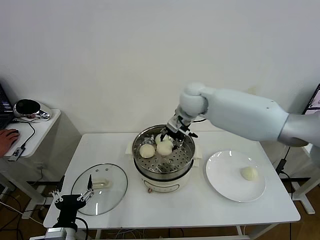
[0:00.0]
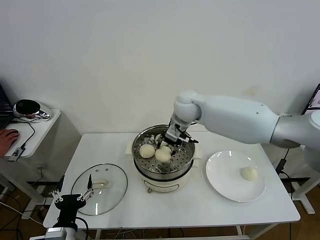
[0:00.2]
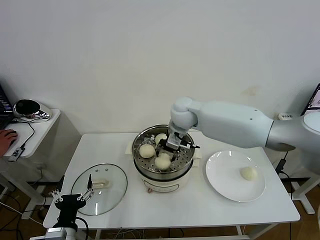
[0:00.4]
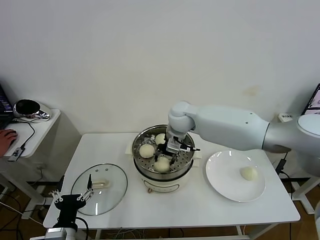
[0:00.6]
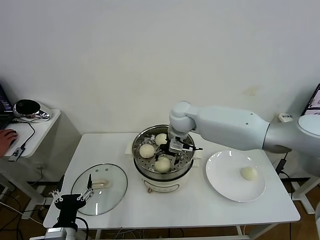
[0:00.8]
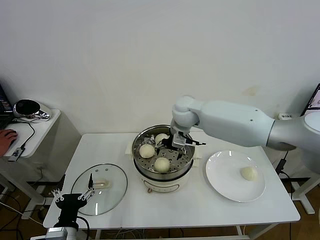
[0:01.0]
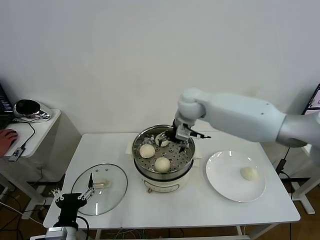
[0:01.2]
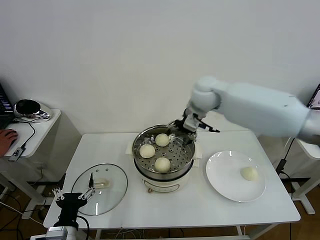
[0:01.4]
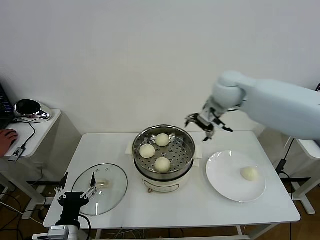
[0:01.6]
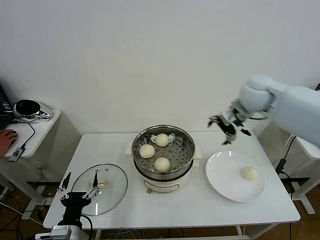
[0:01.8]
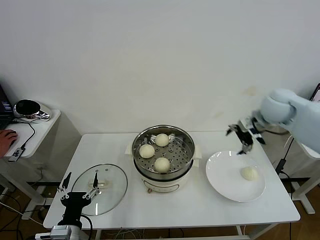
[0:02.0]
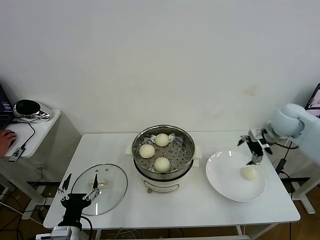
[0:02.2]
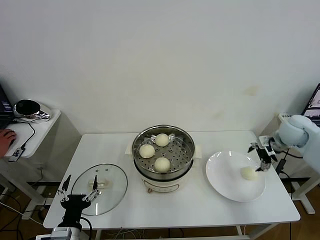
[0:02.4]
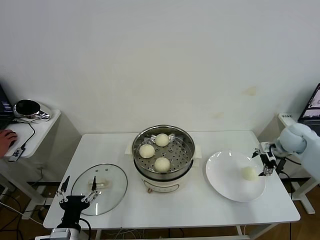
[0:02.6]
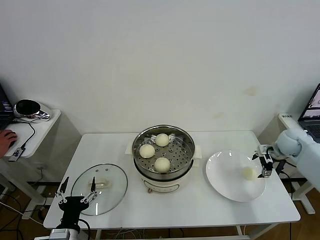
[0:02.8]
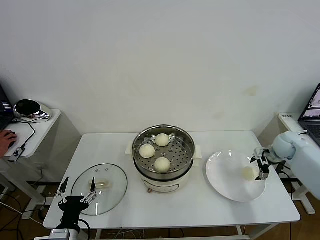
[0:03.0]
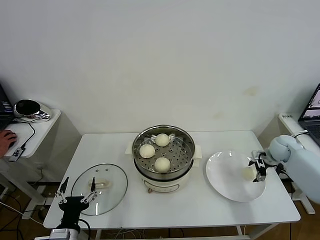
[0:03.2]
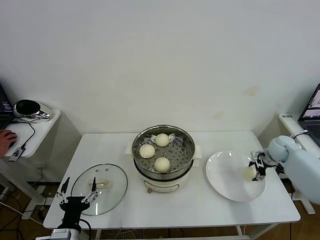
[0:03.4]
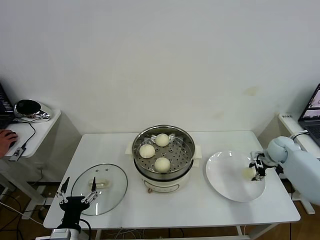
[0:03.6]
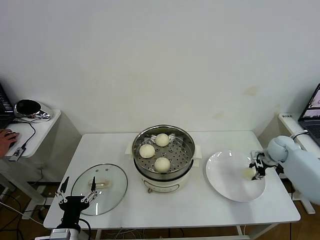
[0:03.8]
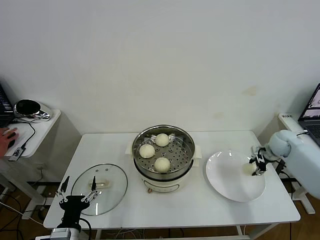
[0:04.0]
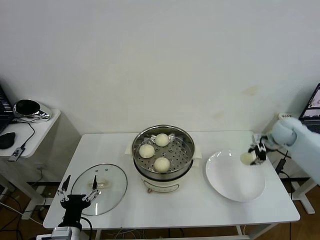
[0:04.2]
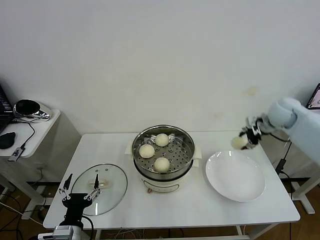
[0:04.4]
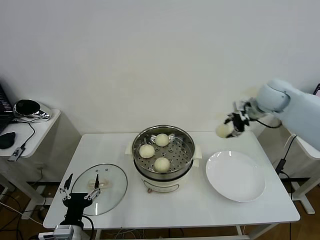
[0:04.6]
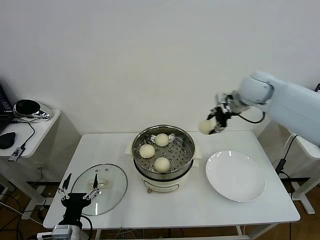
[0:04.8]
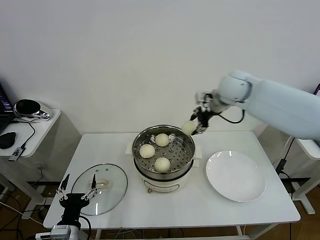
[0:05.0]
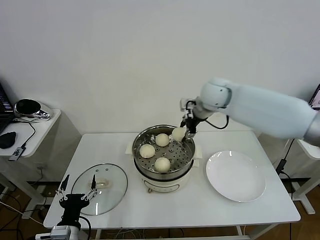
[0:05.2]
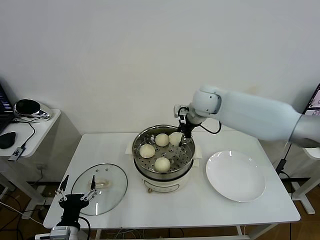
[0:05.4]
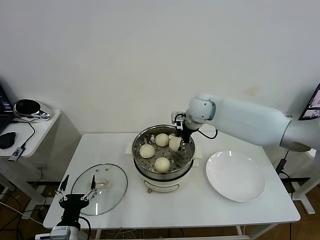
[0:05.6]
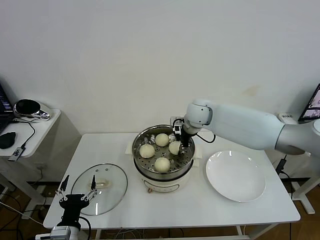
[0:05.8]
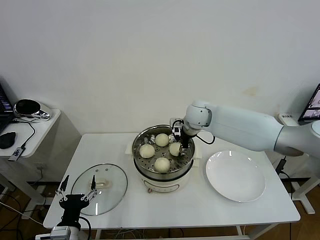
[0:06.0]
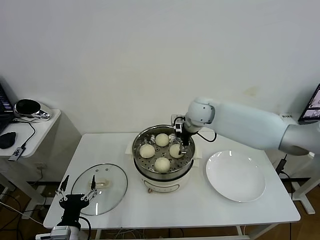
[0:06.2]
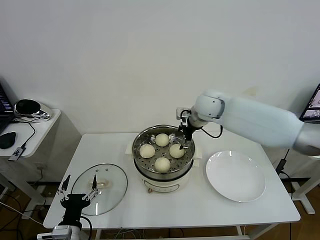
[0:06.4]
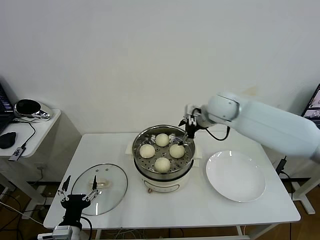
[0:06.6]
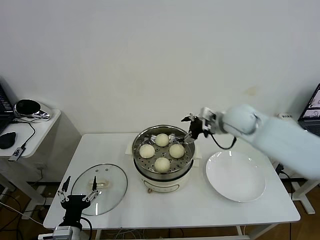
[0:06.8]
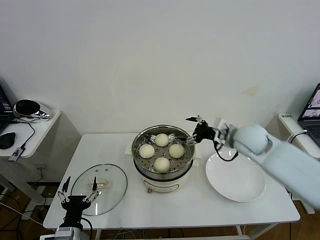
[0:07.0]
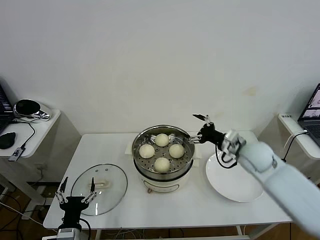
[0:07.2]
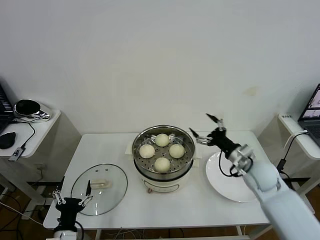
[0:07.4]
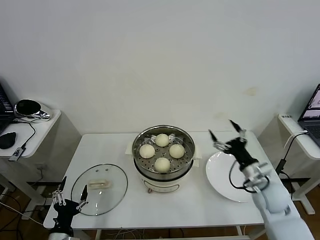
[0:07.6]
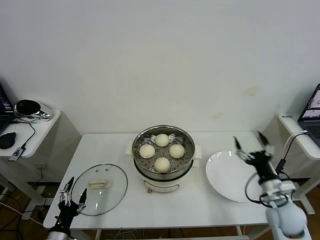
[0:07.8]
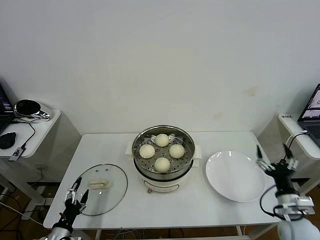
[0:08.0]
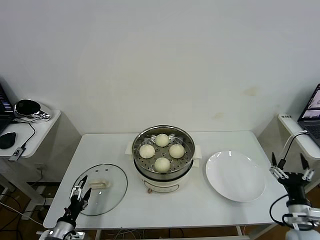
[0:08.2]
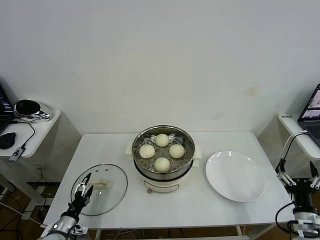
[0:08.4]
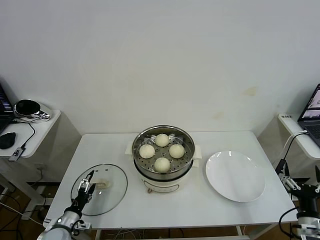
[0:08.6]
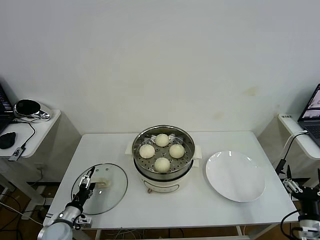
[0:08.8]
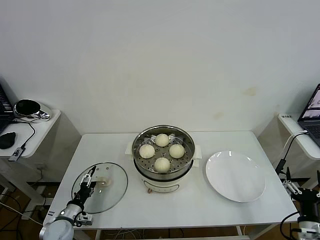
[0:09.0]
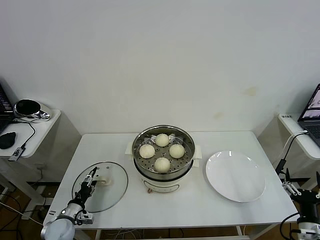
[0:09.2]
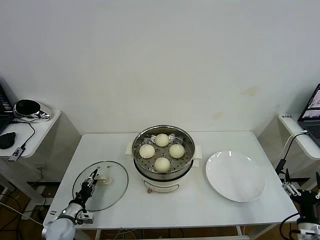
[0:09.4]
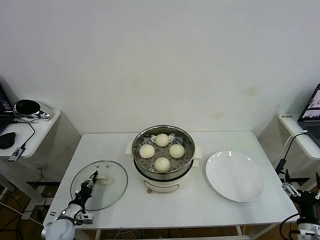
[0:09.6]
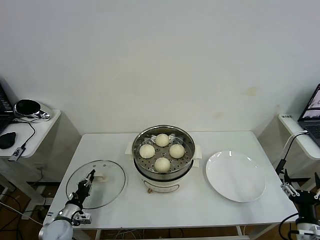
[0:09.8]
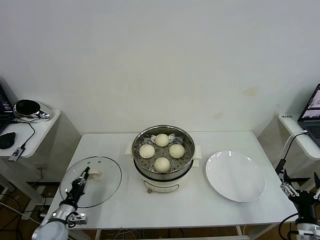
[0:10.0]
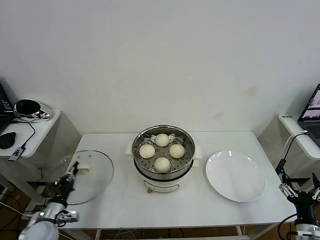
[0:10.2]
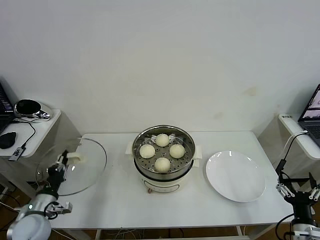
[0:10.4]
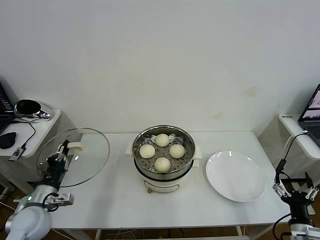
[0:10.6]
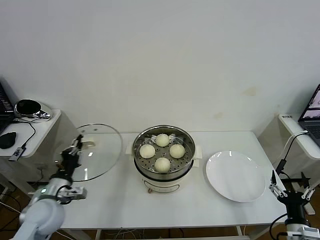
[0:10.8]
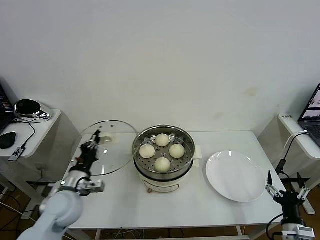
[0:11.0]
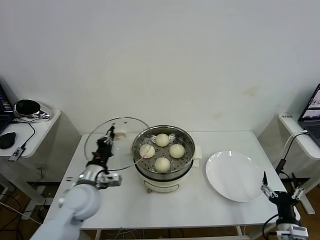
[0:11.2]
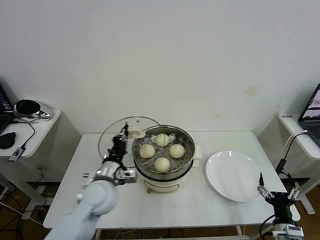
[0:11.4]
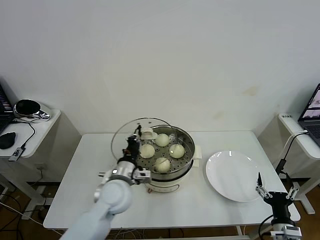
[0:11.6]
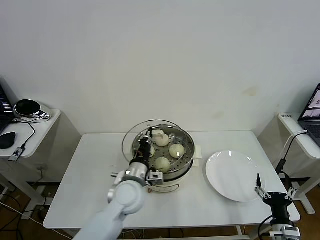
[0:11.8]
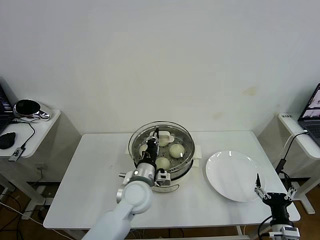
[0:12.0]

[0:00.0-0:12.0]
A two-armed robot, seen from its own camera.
Task of the whole recording: take steamed baozi put them in steamer then cover it.
Step, 0:01.2 to 0:03.8: Grasp the baozi in the plate with right gripper.
Step, 0:04.0 to 0:06.2: Place the baozi on the steamer with right gripper.
Step, 0:06.6 to 0:09.8: Grasp the pot lid with left gripper.
0:00.0 to 0:01.6: The right gripper moves to the right and upward, roughly 15 cm, and opens up.
0:01.6 to 0:03.0: The right gripper travels to the right and downward by about 35 cm.
0:03.0 to 0:04.4: The right gripper moves upward and to the left, about 20 cm, and closes its fingers.
0:04.4 to 0:06.0: The right gripper is displaced to the left by roughly 25 cm.
0:06.0 to 0:07.6: The right gripper shifts approximately 35 cm backward, to the right and downward, and opens its fingers. Meanwhile the left gripper goes about 5 cm downward.
0:07.6 to 0:09.0: The left gripper goes approximately 15 cm forward, downward and to the left; the right gripper travels backward and to the right by about 20 cm.
0:09.0 to 0:10.4: The left gripper moves upward, about 10 cm, and closes its fingers.
0:10.4 to 0:12.0: The left gripper goes roughly 30 cm to the right. Meanwhile the right gripper changes place by some 5 cm.

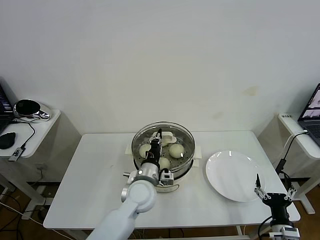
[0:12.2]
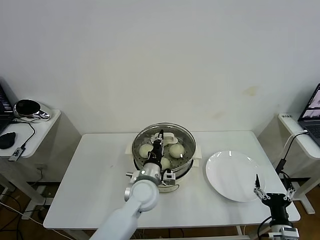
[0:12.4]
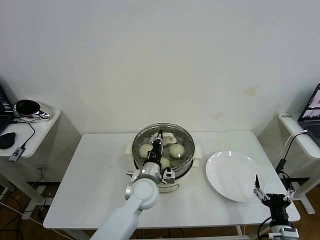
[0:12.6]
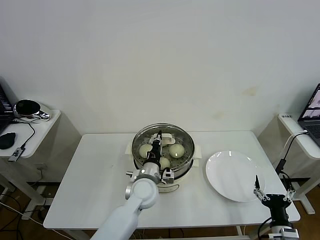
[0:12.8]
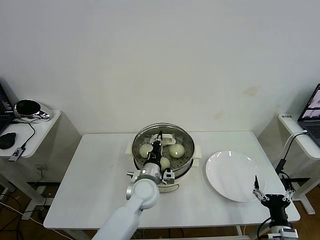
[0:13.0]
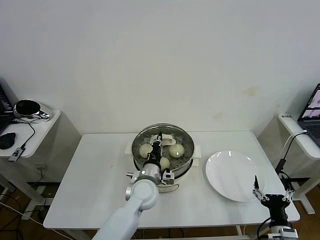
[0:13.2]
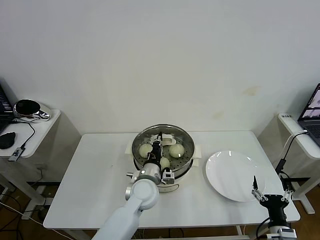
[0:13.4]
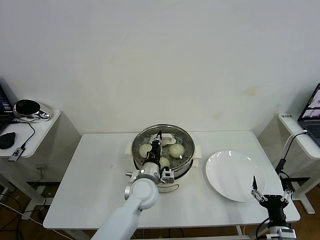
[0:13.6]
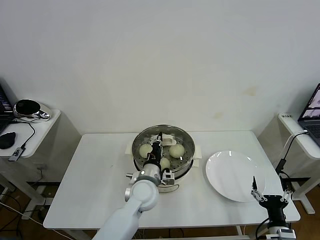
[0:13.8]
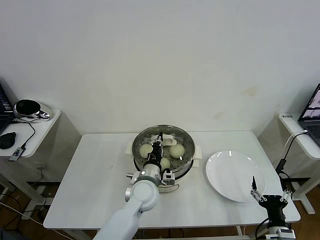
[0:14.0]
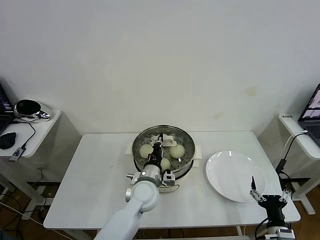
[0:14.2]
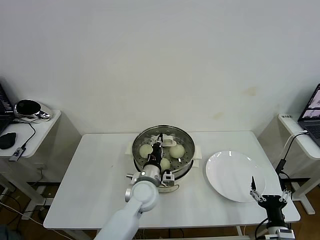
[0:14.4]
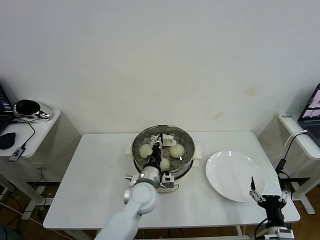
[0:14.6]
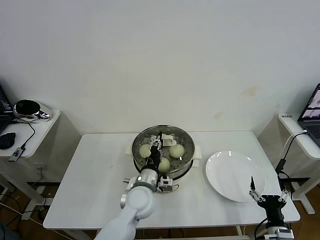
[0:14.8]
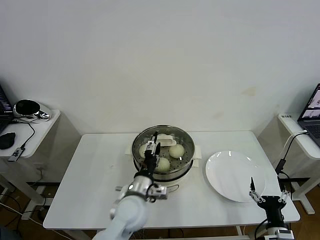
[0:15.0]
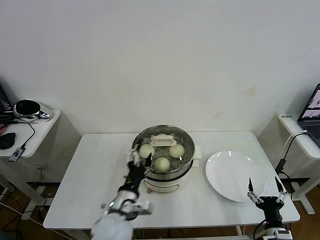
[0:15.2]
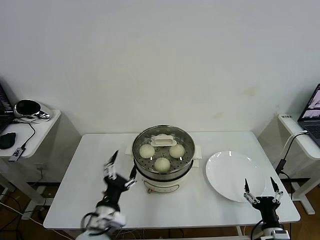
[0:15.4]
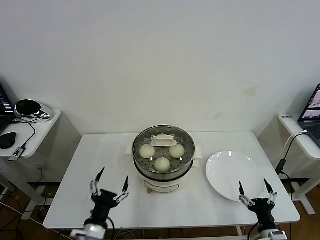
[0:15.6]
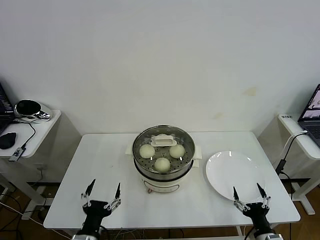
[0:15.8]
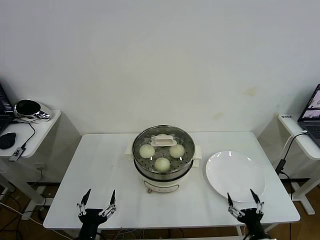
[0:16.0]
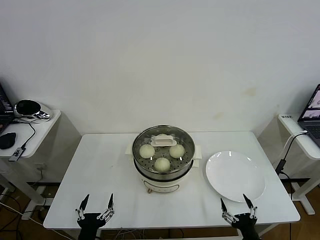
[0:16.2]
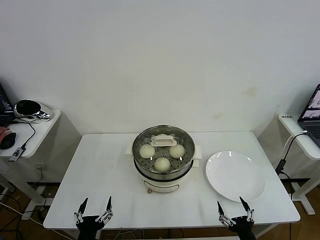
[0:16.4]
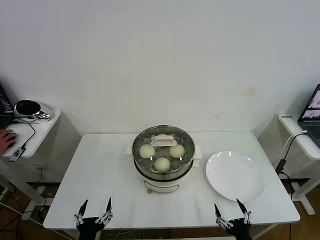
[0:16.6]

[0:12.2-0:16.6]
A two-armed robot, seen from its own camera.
Task of the whole recording: take steamed baozi put them in steamer then cover it.
Step, 0:12.2 to 0:15.2: Place the pot lid on the steamer with left gripper.
0:12.2 to 0:13.6: There are only small adjustments of the grippers.
0:13.6 to 0:15.2: The left gripper goes about 10 cm backward and to the left, and opens.
0:15.2 to 0:16.6: The left gripper heads backward, to the left and downward, covering roughly 20 cm, while the right gripper heads to the left and backward, covering about 10 cm.

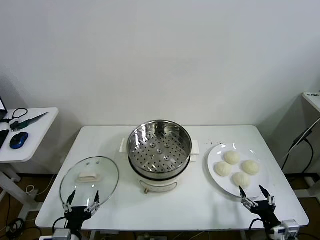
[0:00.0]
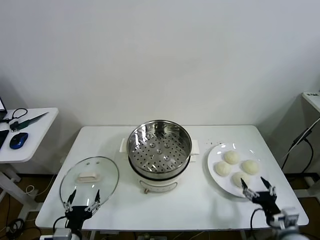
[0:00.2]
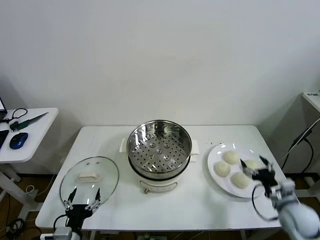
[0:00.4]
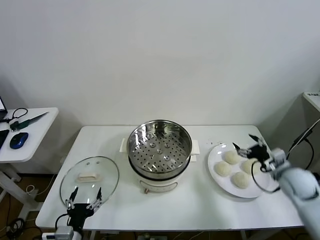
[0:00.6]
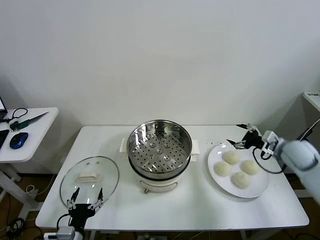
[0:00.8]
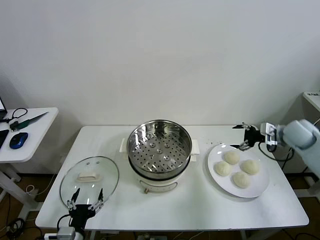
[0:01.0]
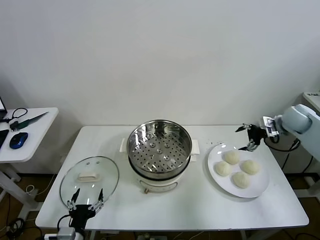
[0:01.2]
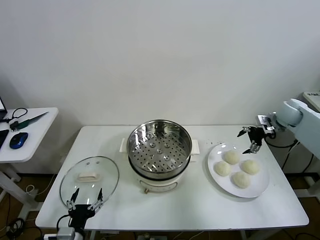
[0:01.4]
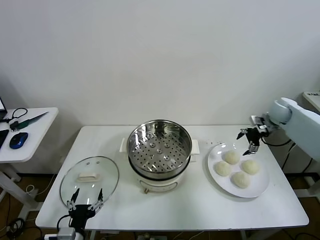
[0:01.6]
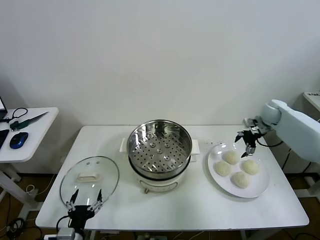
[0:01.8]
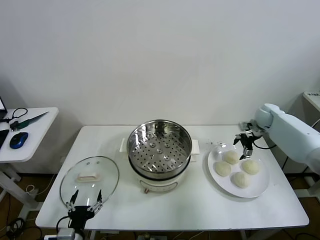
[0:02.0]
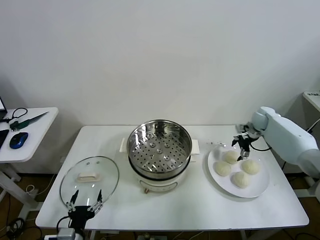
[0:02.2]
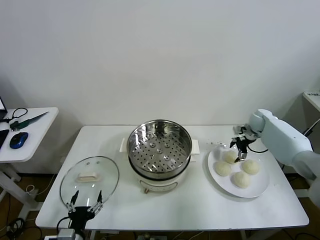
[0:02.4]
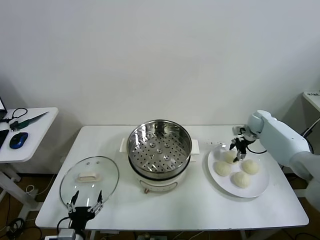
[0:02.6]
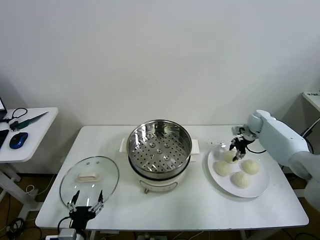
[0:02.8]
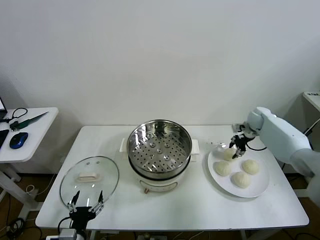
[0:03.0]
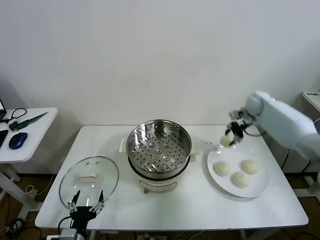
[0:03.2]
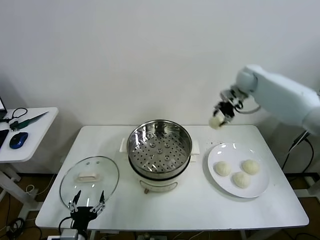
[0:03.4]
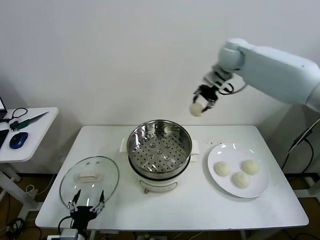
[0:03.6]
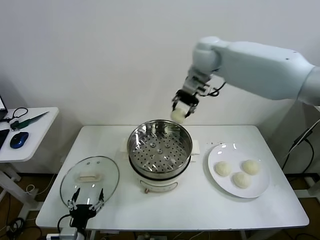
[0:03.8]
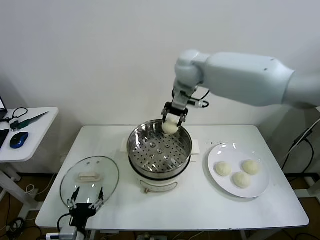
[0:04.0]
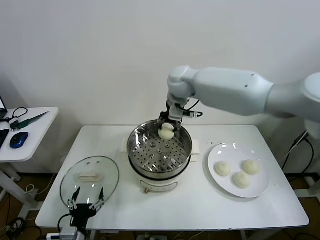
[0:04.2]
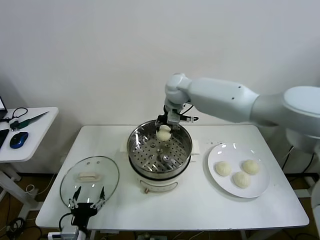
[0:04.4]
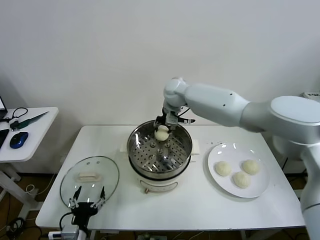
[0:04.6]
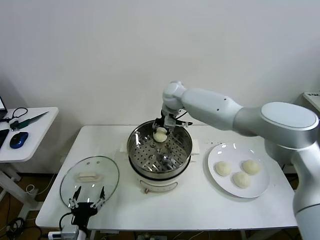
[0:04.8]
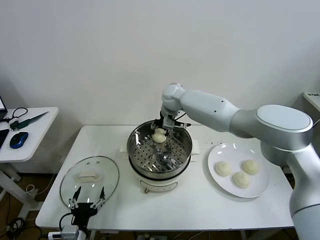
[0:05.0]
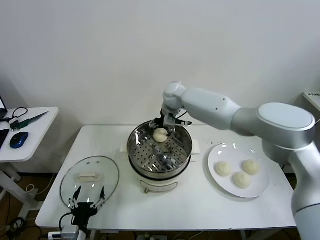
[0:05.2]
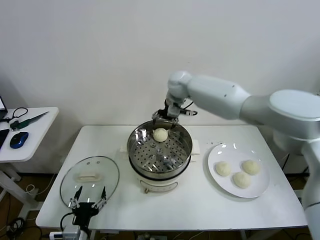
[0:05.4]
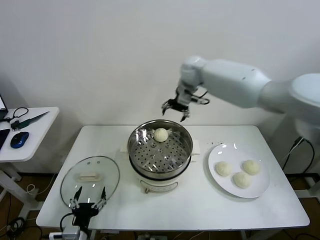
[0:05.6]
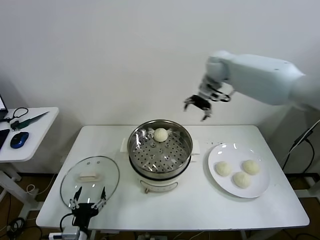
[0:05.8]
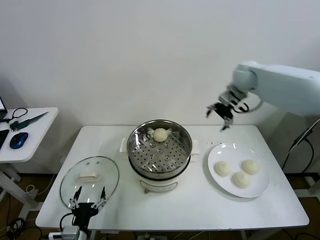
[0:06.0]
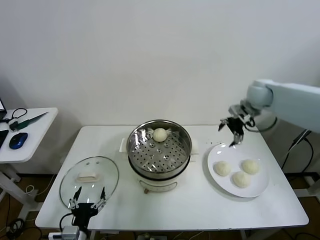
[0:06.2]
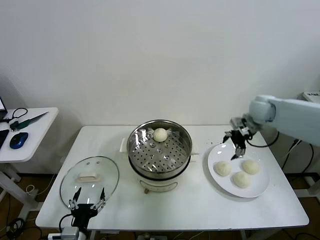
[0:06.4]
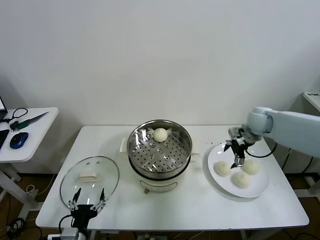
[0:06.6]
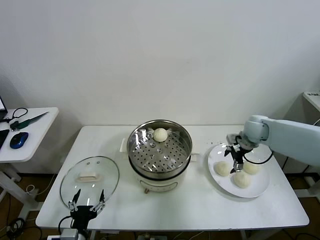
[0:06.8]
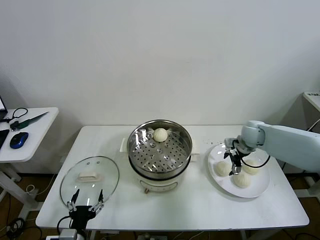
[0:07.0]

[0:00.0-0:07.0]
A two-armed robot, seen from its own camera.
Task of the whole recording: take steamed baozi put them in steamer then cover it.
Step, 0:00.0 to 0:02.8: Grasp the baozi in the plate with right gripper.
Step, 0:03.0 to 0:05.2: Place the baozi on the steamer with right gripper.
0:01.4 to 0:02.8: The right gripper travels downward and forward by some 10 cm, and closes.
0:02.8 to 0:04.2: The right gripper shifts approximately 40 cm to the left and upward.
0:04.2 to 0:05.6: The right gripper goes some 10 cm to the right and forward, and opens.
0:05.6 to 0:07.0: The right gripper shifts about 30 cm downward, to the right and backward.
